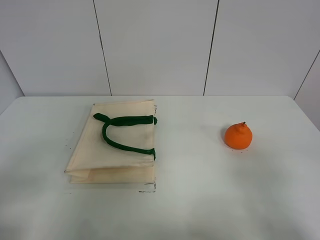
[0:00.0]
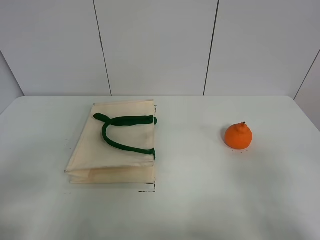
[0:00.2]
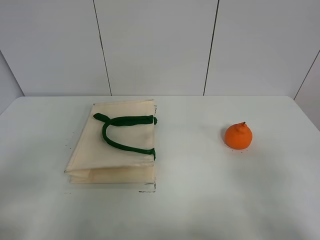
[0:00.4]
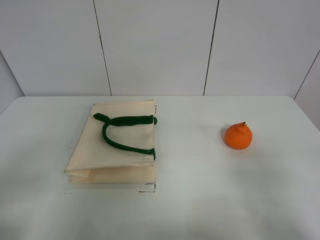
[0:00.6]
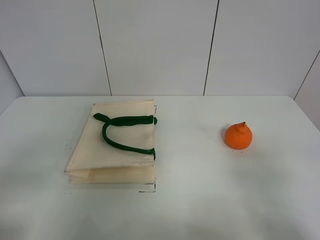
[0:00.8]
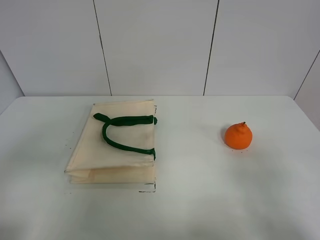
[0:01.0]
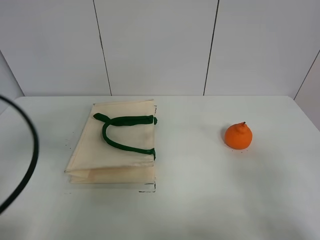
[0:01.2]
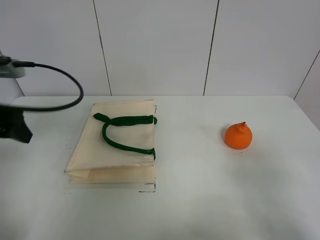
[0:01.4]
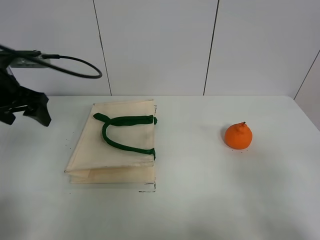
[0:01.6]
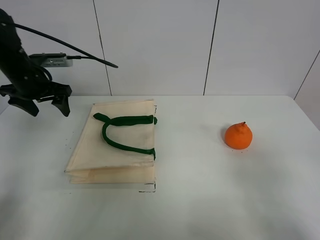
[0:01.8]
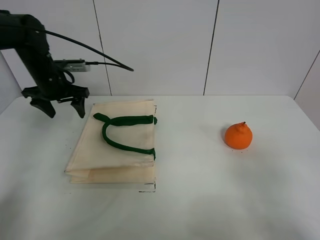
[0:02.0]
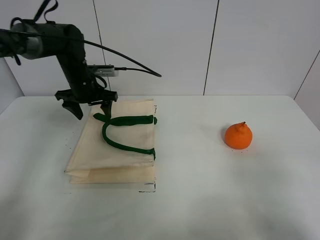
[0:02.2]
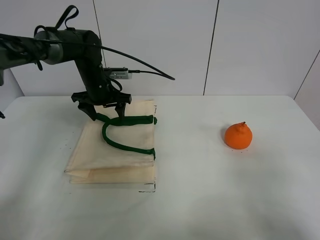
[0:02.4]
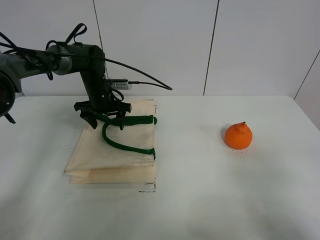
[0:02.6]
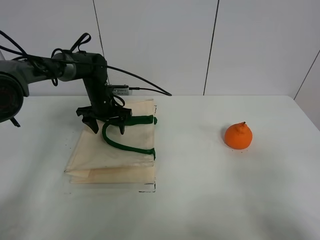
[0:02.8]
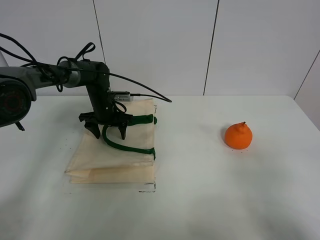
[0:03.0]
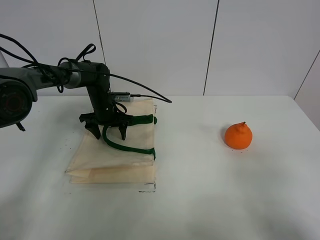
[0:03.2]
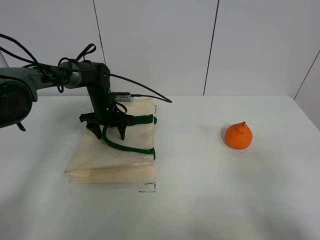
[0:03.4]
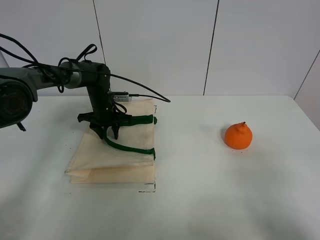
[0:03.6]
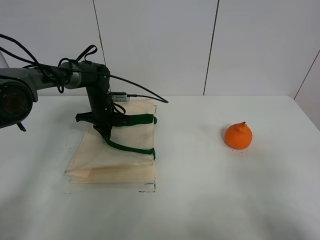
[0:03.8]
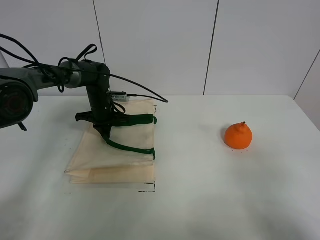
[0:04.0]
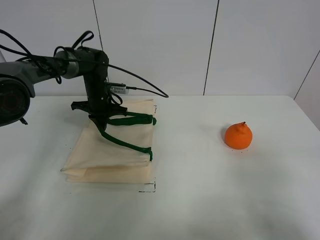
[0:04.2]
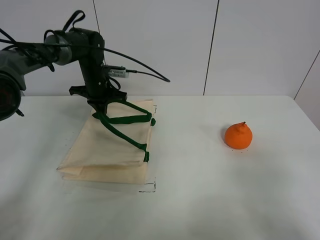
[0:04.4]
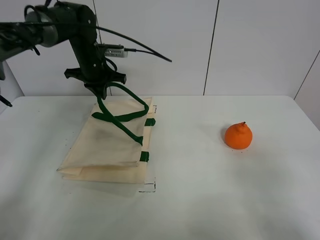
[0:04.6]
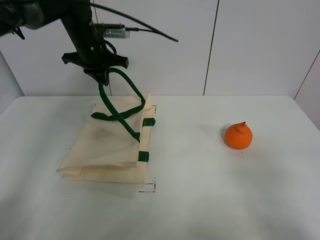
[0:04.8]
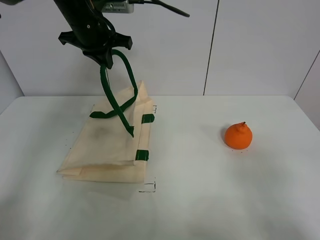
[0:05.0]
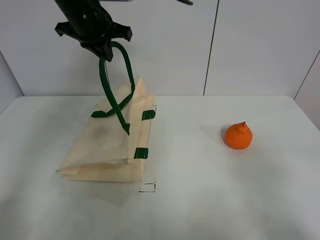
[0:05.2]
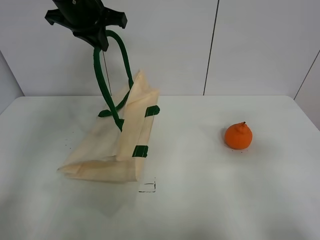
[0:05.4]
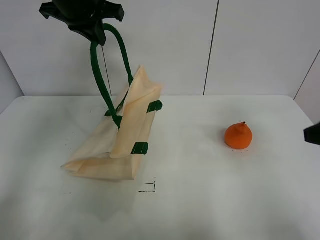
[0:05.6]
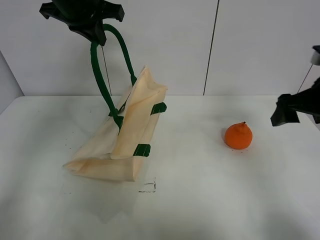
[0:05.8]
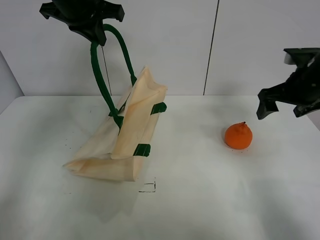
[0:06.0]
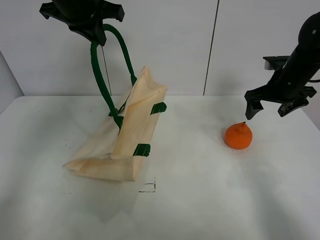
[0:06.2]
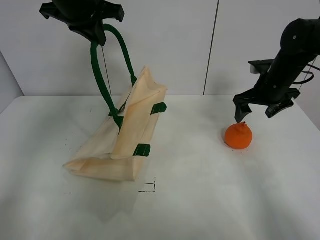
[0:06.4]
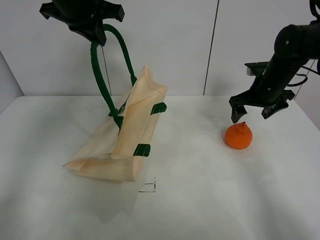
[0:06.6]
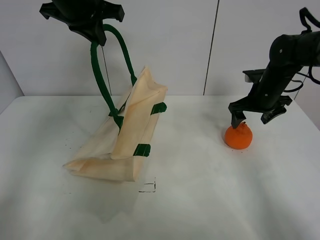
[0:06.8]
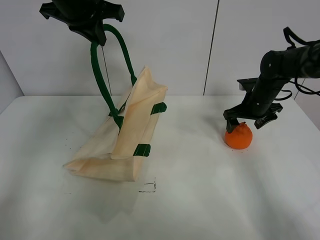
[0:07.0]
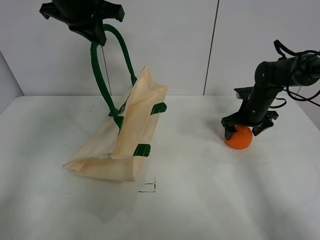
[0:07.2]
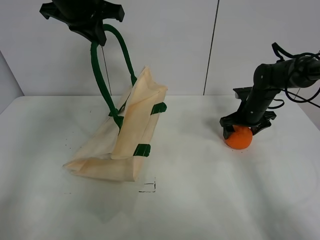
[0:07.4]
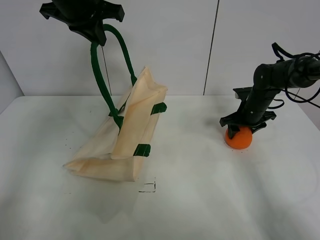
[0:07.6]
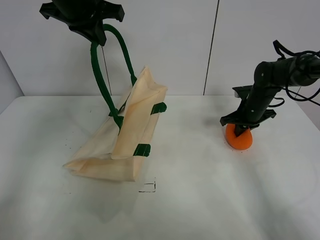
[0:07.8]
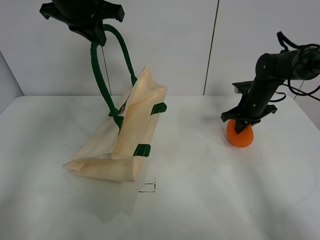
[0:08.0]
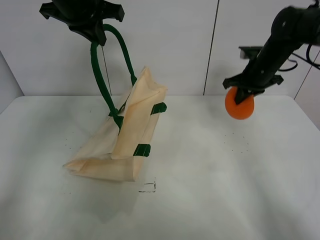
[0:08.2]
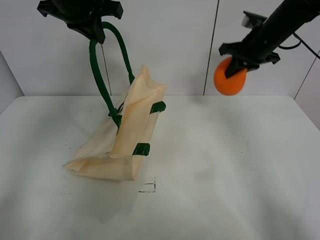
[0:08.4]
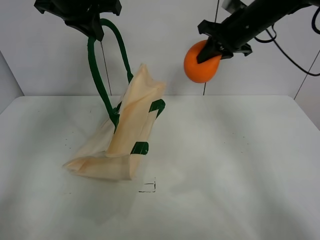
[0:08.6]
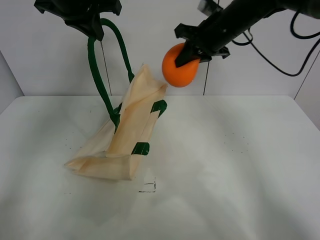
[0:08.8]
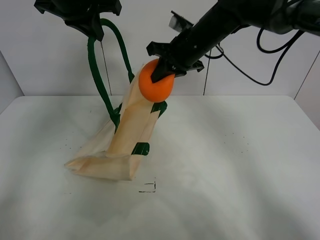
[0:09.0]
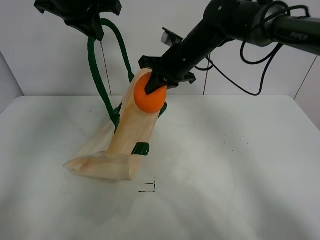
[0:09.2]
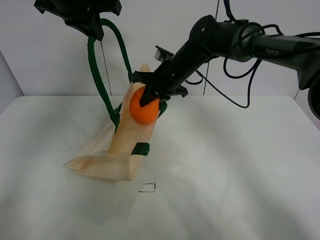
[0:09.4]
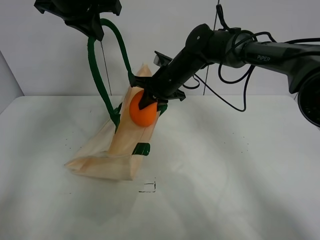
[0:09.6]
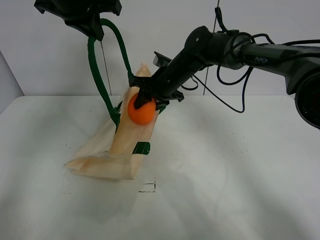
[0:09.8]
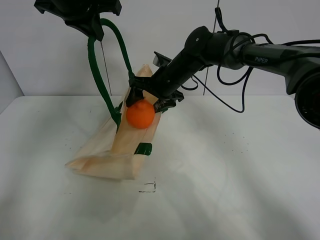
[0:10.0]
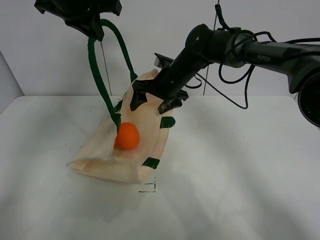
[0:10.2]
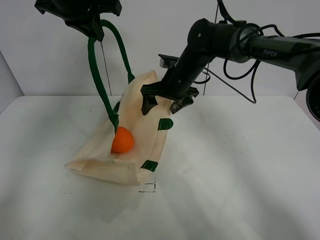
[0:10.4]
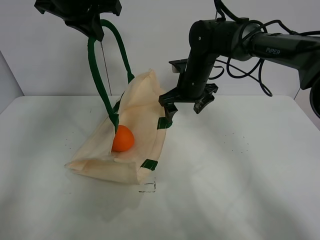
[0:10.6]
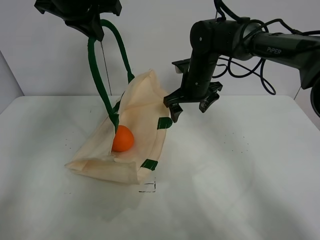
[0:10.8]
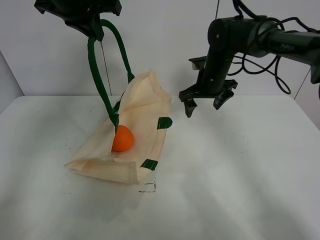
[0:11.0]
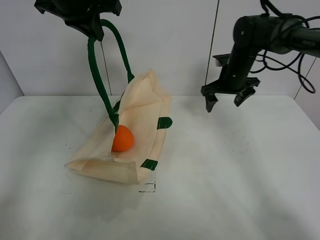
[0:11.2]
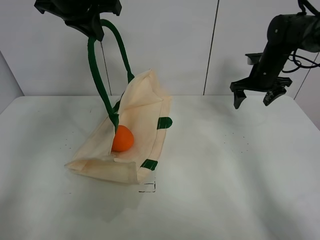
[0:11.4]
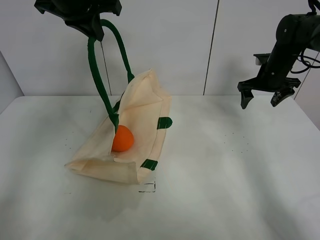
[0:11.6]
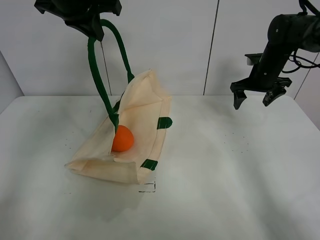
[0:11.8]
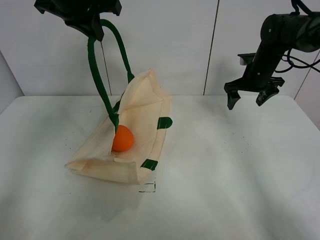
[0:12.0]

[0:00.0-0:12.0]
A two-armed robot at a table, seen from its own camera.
Task of the whole recording: open the white linen bag and put the orange in the bag.
Step, 0:00.0 to 0:05.2: Lift the handbag with left gripper.
Step, 0:05.4 to 0:07.6: Grasp the orange with right gripper.
Step, 0:07.8 to 0:10.4: Place the orange in the handbag with right gripper.
0:00.0 to 0:01.6: The left gripper heads forward, covering about 30 cm.
0:01.6 to 0:03.0: The left gripper goes some 25 cm downward, forward and to the right.
0:03.0 to 0:04.4: The left gripper heads upward, covering some 10 cm, and closes up.
0:04.4 to 0:06.0: The right gripper shifts some 35 cm forward; the left gripper is displaced upward and backward by roughly 25 cm.
0:06.0 to 0:07.6: The right gripper moves downward and forward, some 15 cm, and closes its fingers.
0:07.6 to 0:09.0: The right gripper heads to the left and upward, covering approximately 25 cm, and closes up.
0:09.0 to 0:10.4: The right gripper is displaced downward by some 5 cm, and opens up.
0:10.4 to 0:12.0: The right gripper is displaced to the right by some 20 cm.

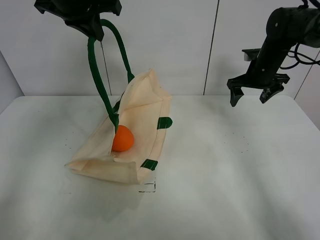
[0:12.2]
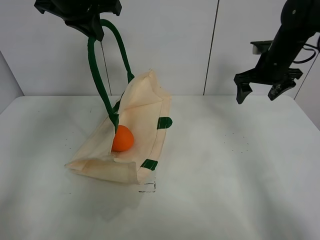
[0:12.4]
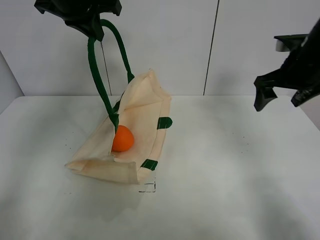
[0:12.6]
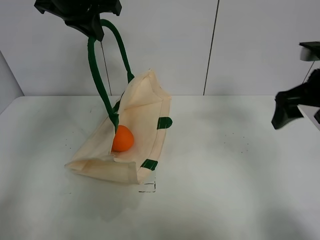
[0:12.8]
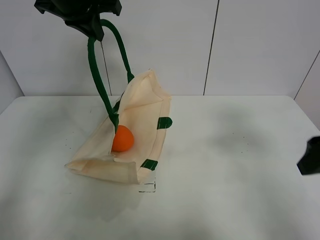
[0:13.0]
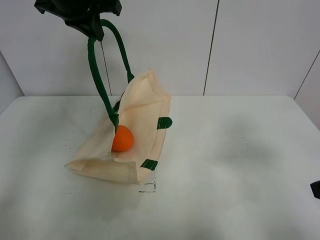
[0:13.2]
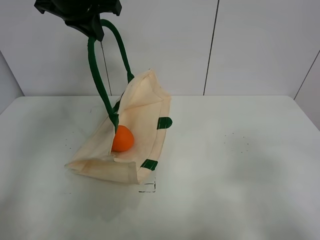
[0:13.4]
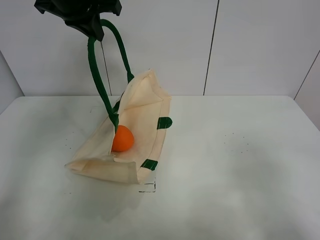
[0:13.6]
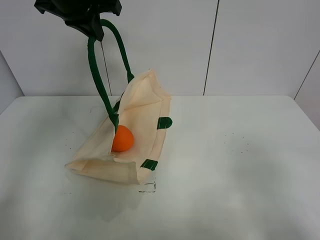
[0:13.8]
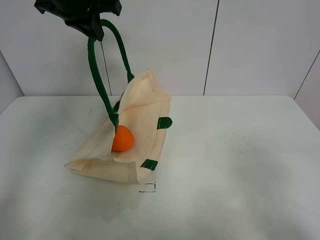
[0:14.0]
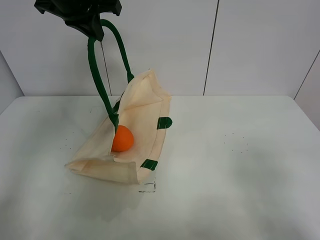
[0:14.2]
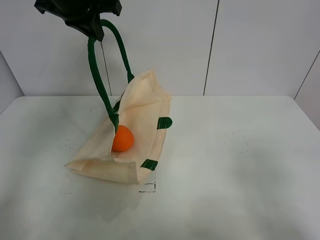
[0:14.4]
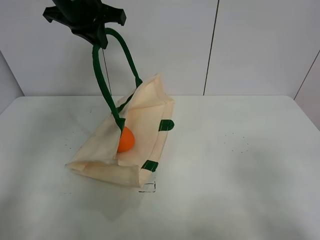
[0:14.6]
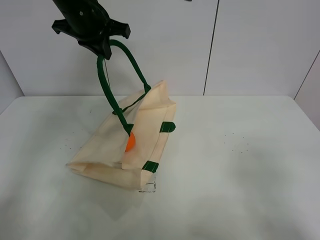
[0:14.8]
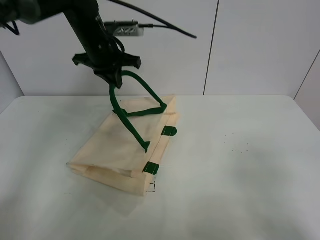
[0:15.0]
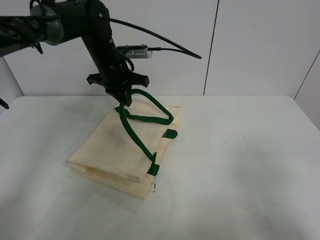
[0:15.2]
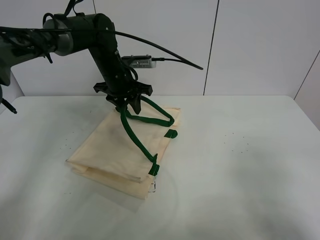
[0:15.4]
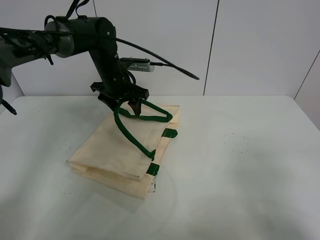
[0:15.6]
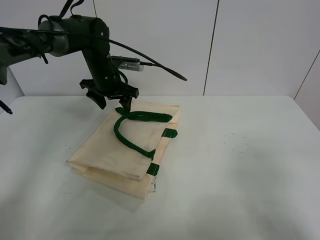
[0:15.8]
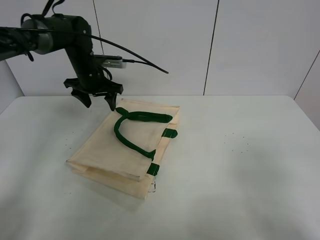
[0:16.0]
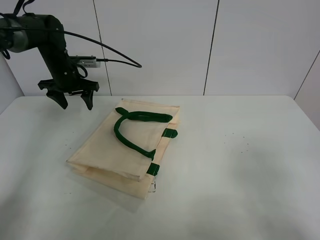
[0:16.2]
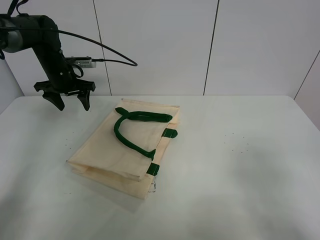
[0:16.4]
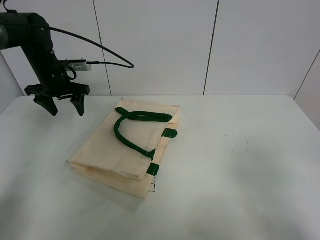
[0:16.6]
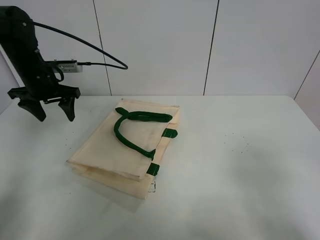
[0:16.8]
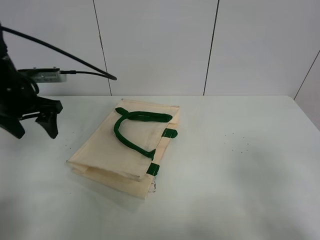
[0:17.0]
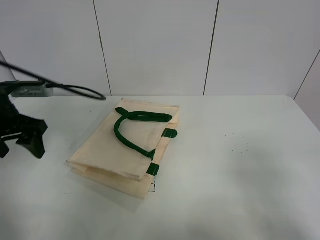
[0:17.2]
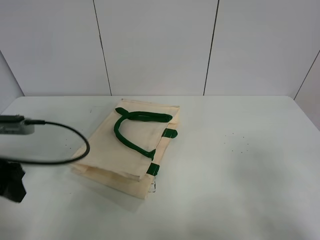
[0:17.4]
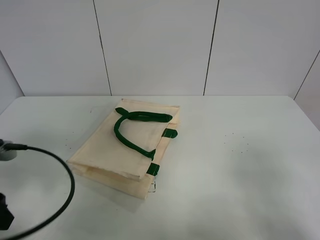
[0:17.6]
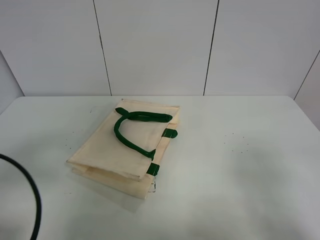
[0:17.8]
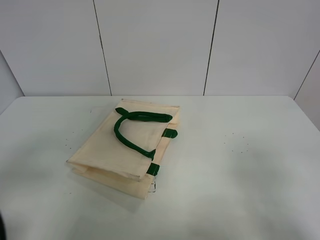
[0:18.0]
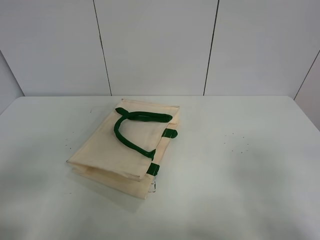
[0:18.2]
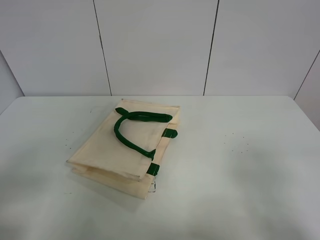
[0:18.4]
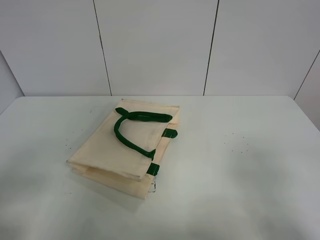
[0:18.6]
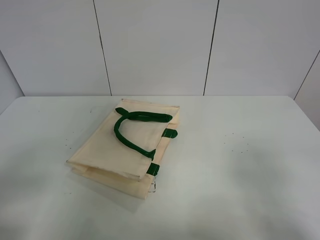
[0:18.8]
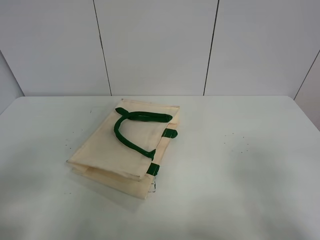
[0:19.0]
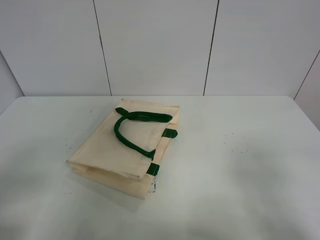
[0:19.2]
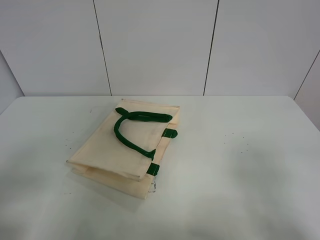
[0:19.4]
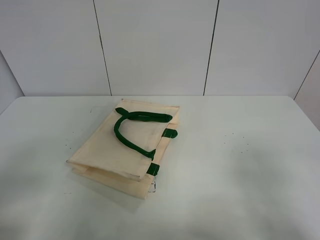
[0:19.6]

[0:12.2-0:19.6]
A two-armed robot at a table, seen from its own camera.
Task of the whole recording: open the white linen bag and put the orange in the bag.
Step, 0:12.2 to 0:15.6: Put down the handbag with left gripper.
0:12.2 to 0:13.6: The right gripper heads backward, covering about 40 cm.
0:13.6 to 0:15.2: The left gripper travels downward by some 15 cm.
0:15.2 to 0:16.6: The left gripper is displaced to the left by roughly 15 cm, and opens.
0:16.6 to 0:18.2: The left gripper shifts some 40 cm backward.
0:18.2 to 0:19.6: Neither gripper changes place.
